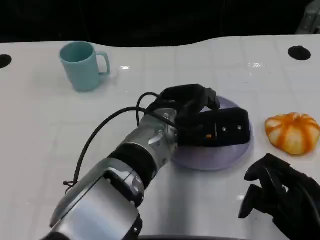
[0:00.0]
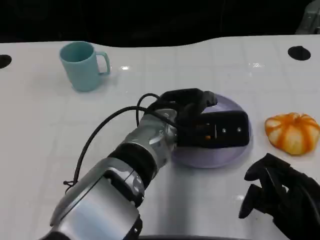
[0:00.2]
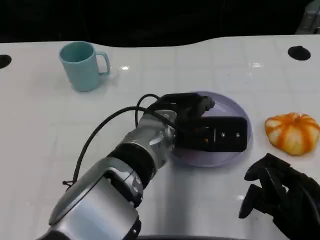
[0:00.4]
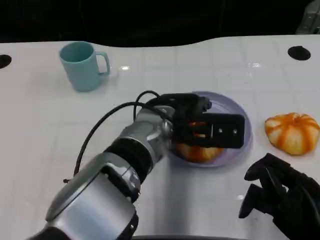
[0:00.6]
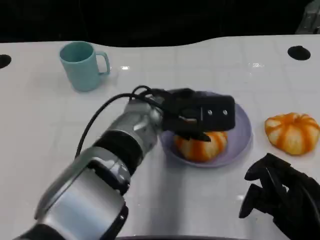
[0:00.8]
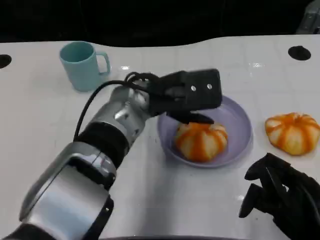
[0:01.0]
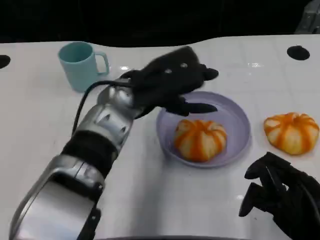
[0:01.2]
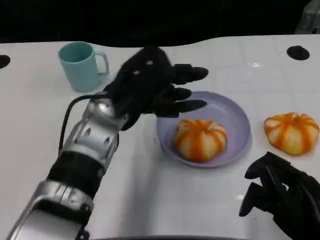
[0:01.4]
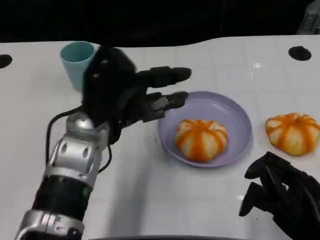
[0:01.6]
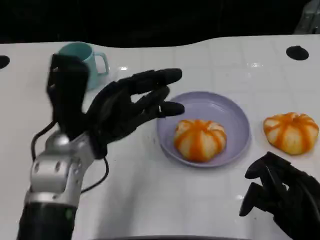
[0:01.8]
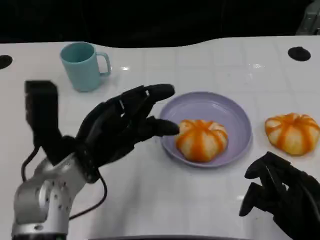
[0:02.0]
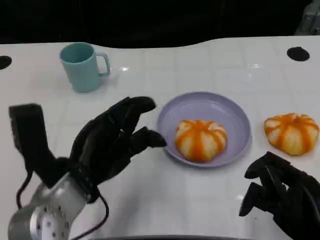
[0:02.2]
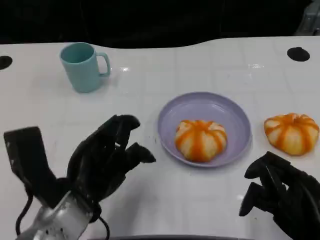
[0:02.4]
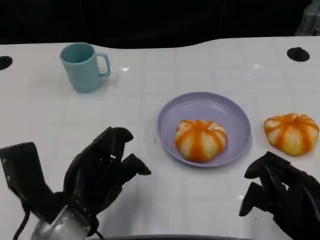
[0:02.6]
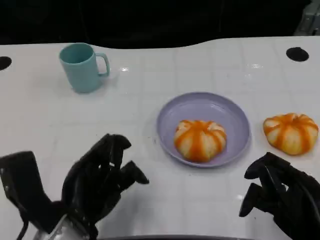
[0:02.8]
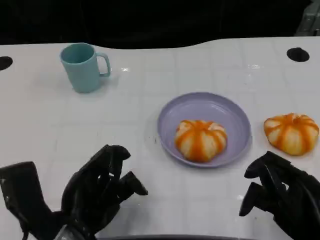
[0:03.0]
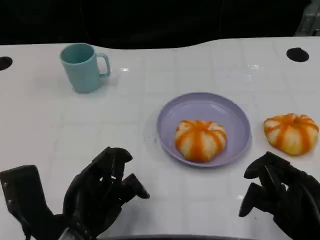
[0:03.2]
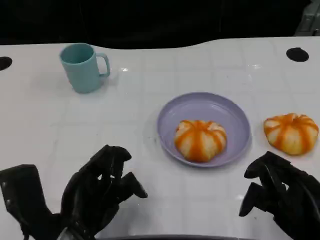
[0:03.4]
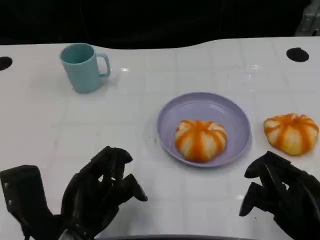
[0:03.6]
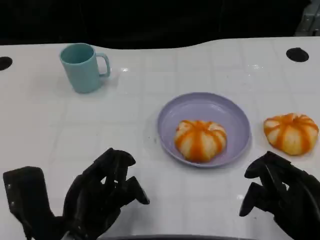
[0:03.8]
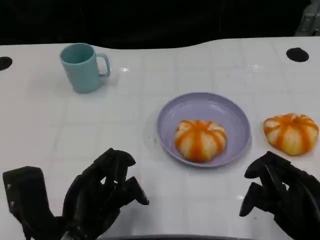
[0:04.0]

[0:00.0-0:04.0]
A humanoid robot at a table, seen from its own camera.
Task of the whole recording: Grasp the bread from the table and place it into the plate.
0:00.0 to 0:01.4: The left hand is displaced to the left by roughly 10 cm.
0:01.4 to 0:02.6: The left hand goes roughly 15 cm backward, downward and to the left.
0:02.6 to 0:04.0: The hands move only a little.

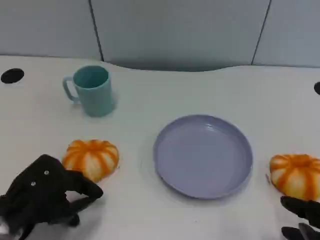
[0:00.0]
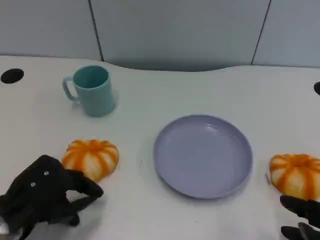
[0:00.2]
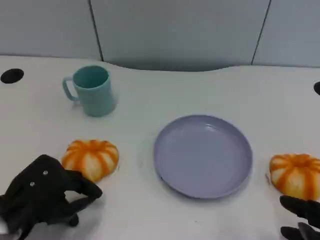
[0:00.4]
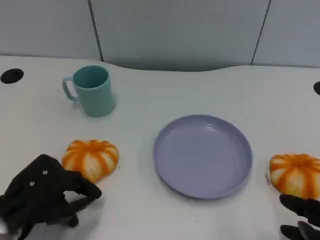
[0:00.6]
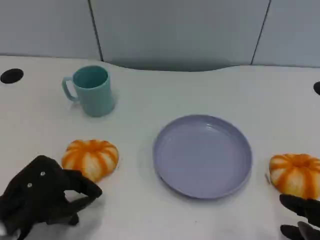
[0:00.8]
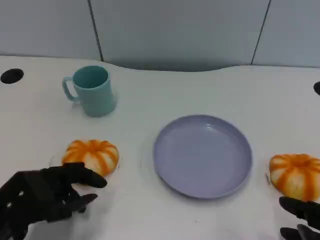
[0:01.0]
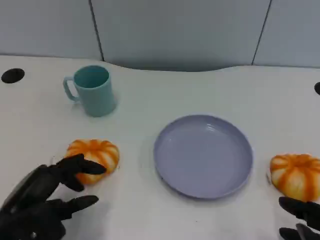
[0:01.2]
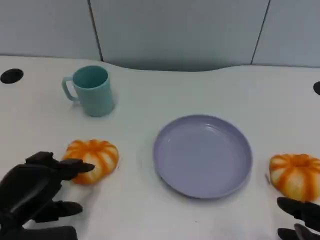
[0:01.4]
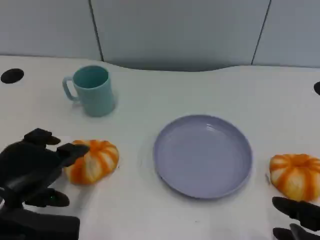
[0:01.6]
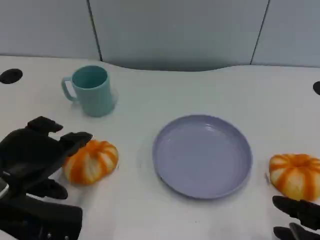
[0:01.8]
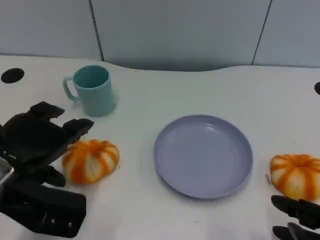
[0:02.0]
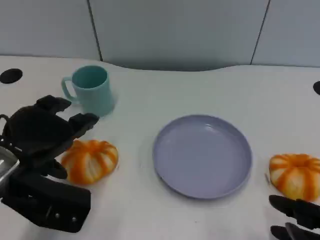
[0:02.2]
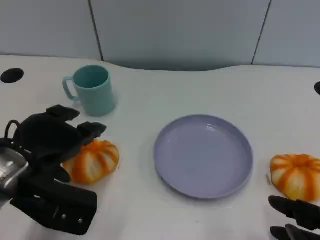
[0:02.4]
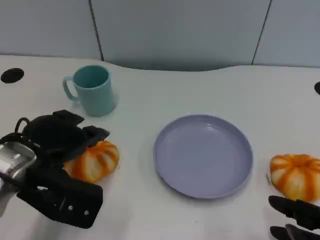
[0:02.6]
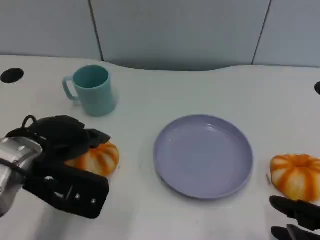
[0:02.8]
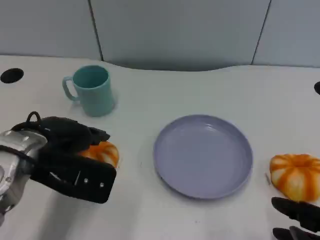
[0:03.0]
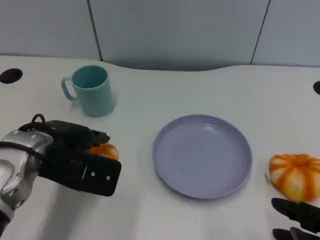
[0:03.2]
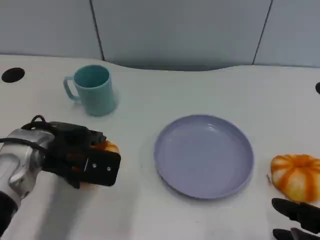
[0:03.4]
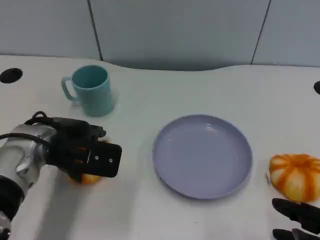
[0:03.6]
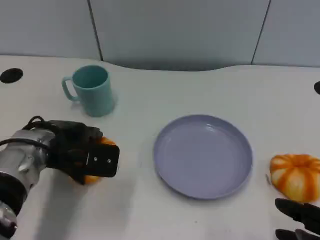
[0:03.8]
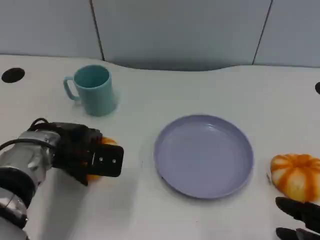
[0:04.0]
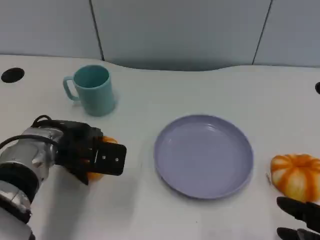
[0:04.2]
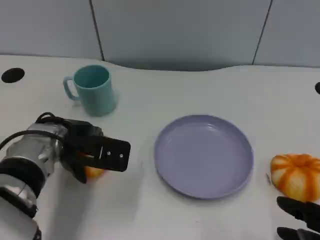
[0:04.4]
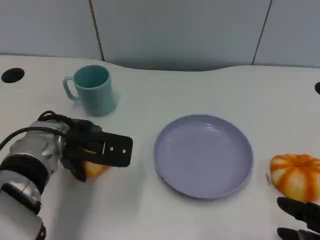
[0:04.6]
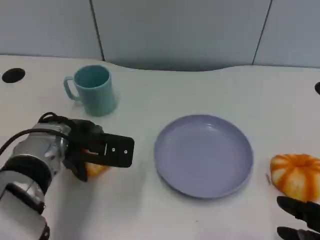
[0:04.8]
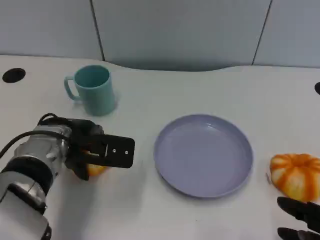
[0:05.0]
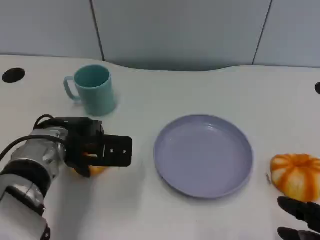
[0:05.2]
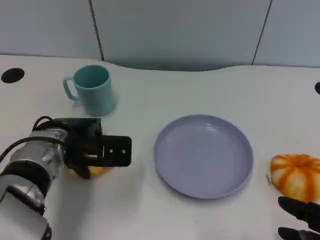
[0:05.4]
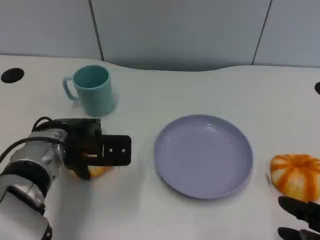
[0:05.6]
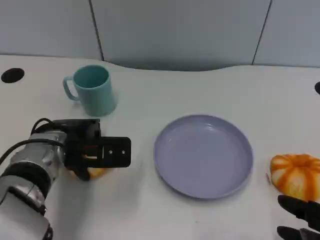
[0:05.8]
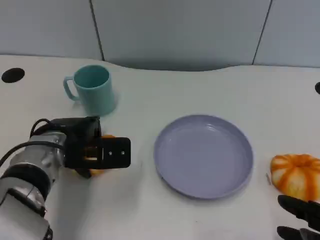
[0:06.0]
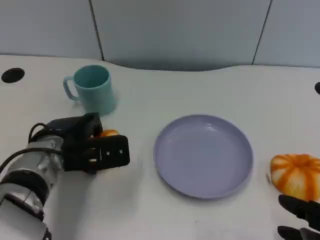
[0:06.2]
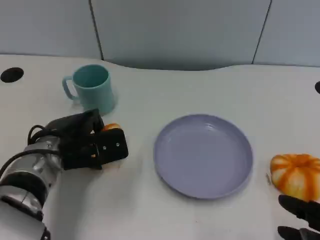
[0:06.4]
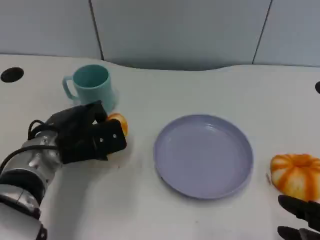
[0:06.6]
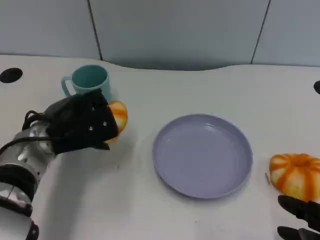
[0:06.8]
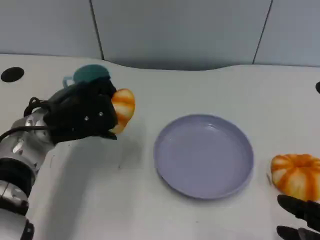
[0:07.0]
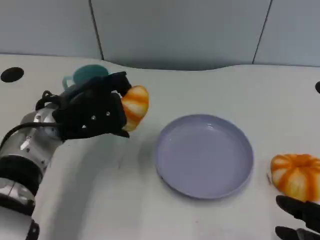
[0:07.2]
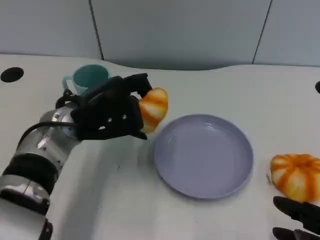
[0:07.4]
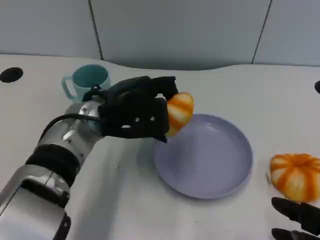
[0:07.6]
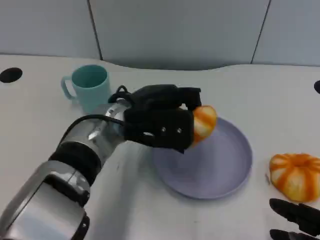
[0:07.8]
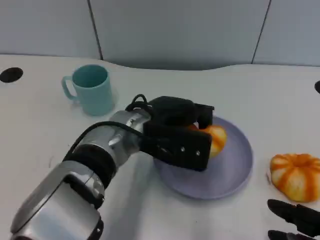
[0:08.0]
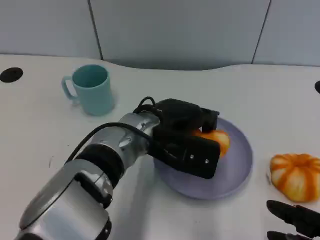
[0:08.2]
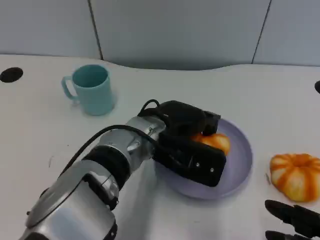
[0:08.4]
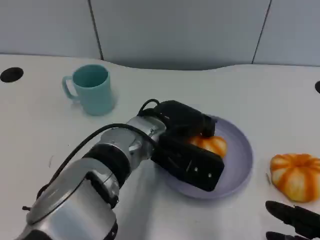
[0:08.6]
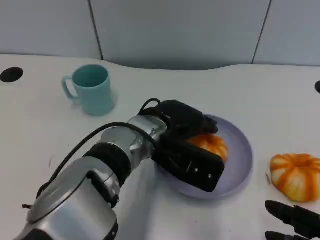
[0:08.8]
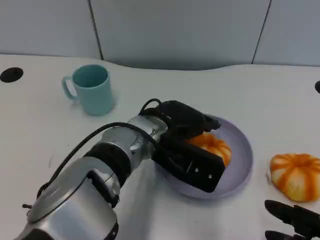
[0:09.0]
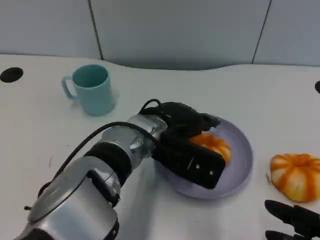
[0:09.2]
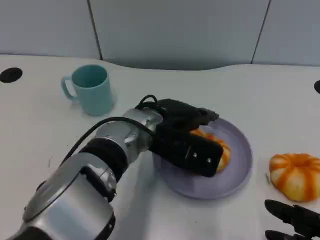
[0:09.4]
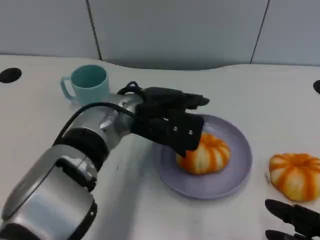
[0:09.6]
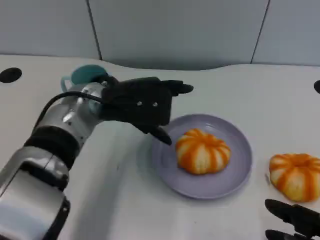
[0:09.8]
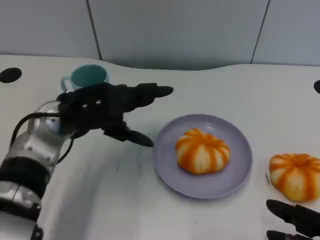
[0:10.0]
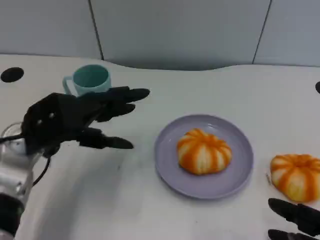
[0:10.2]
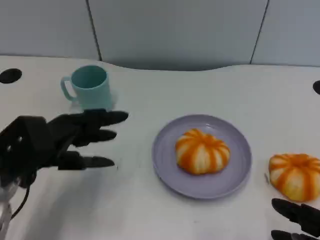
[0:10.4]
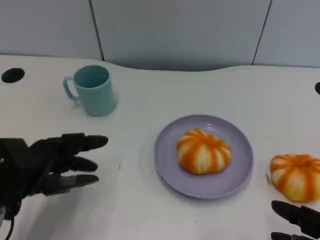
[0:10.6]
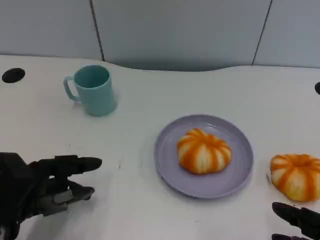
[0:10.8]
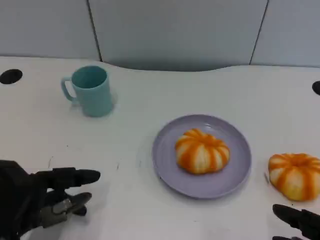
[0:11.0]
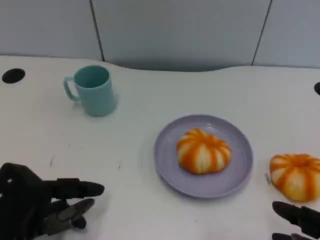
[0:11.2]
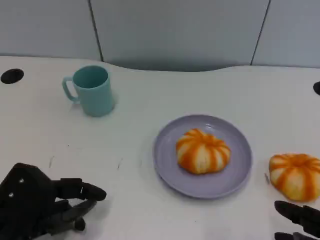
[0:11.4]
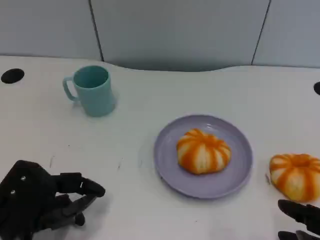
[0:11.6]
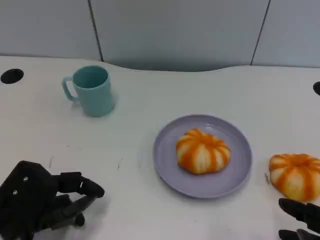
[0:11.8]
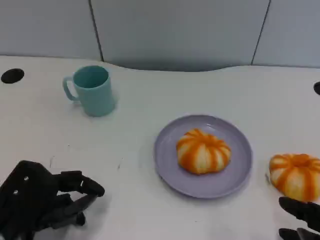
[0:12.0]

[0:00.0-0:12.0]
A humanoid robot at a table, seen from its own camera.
Task of the whole recording: Grasp the bread from the table and place it into the plate.
0:01.6 to 0:03.0: The left hand moves forward and to the right, about 10 cm.
0:03.0 to 0:04.4: The left hand is displaced forward by approximately 5 cm.
0:04.4 to 0:06.0: There are only small adjustments of the hands.
0:06.0 to 0:07.6: The left hand shifts roughly 10 cm to the right and upward.
0:07.6 to 0:09.0: The left hand moves to the right, approximately 5 cm.
0:09.0 to 0:10.4: The left hand travels to the left by roughly 20 cm.
0:10.4 to 0:12.0: The left hand is displaced backward by some 5 cm.

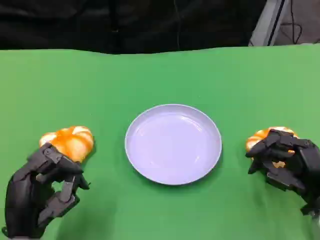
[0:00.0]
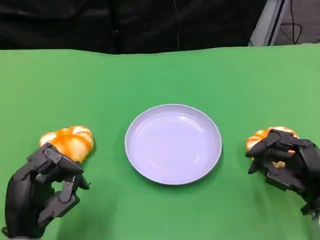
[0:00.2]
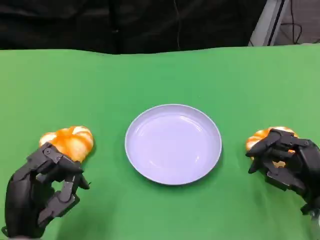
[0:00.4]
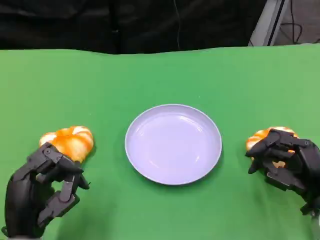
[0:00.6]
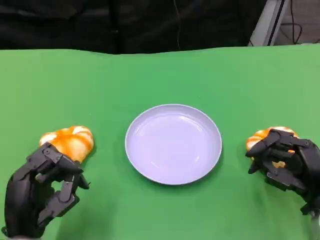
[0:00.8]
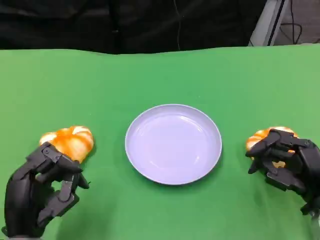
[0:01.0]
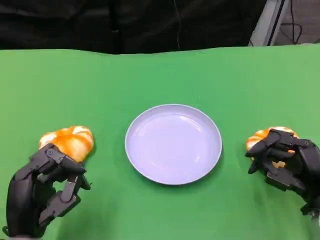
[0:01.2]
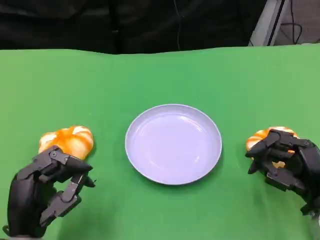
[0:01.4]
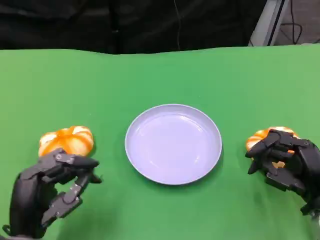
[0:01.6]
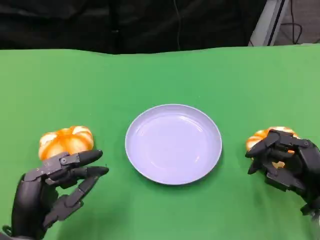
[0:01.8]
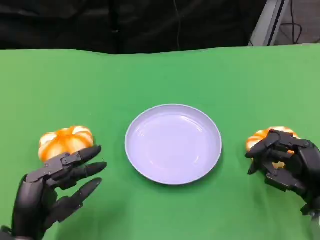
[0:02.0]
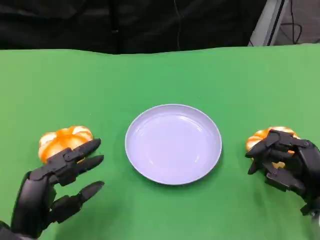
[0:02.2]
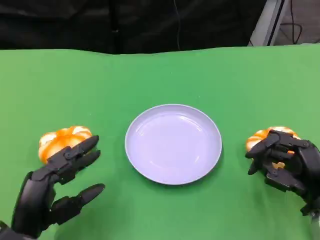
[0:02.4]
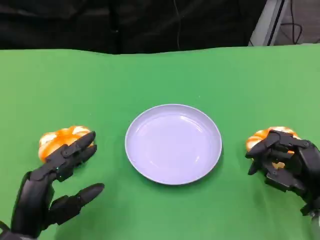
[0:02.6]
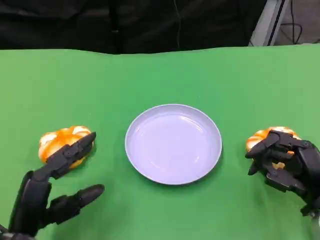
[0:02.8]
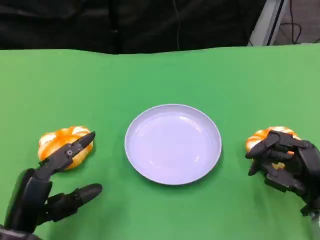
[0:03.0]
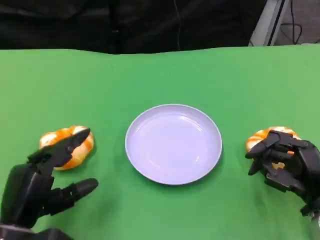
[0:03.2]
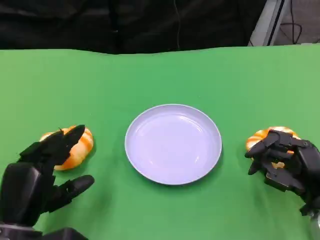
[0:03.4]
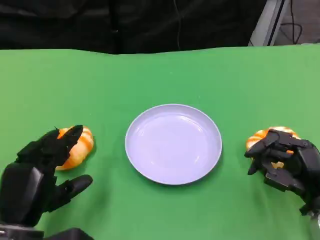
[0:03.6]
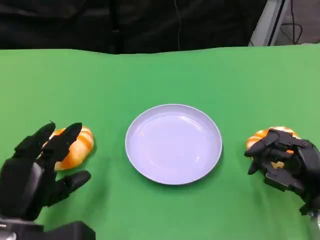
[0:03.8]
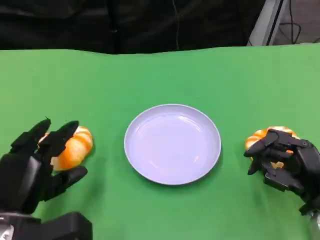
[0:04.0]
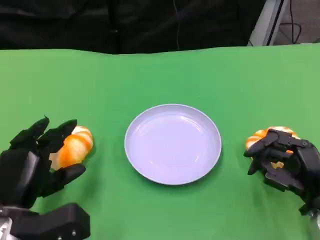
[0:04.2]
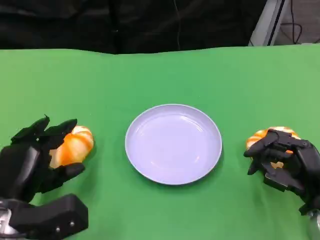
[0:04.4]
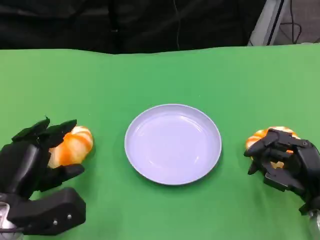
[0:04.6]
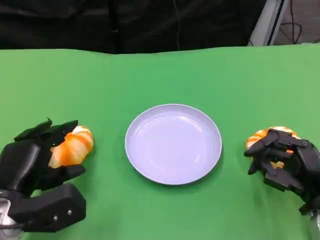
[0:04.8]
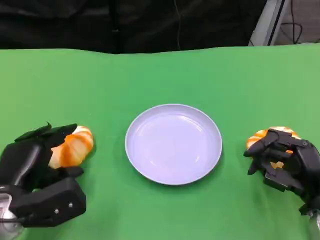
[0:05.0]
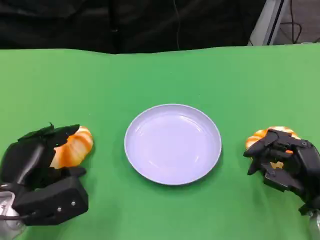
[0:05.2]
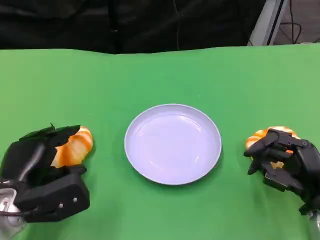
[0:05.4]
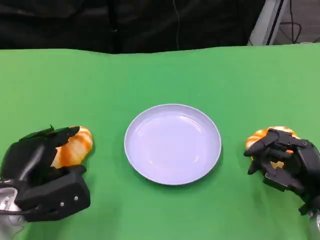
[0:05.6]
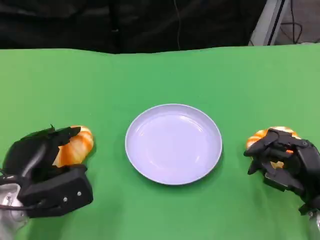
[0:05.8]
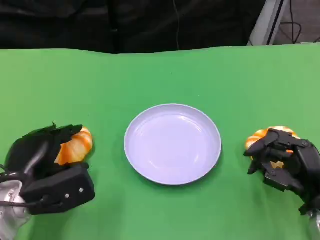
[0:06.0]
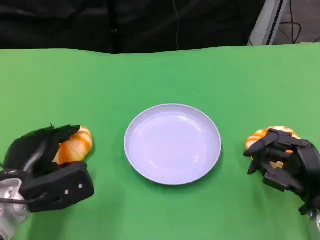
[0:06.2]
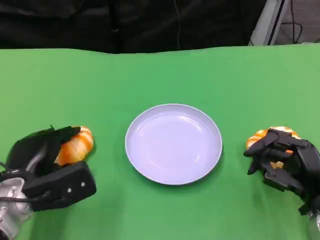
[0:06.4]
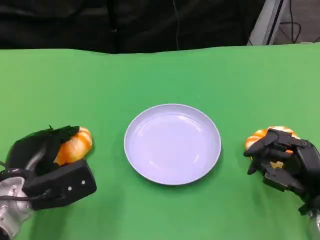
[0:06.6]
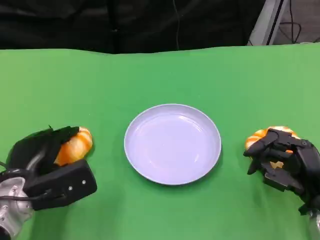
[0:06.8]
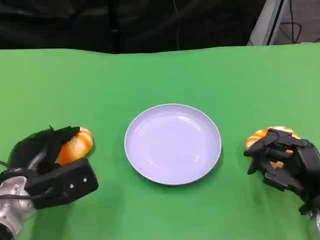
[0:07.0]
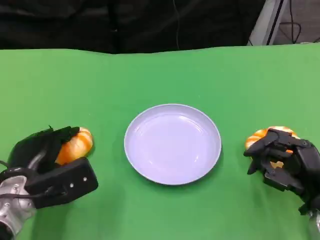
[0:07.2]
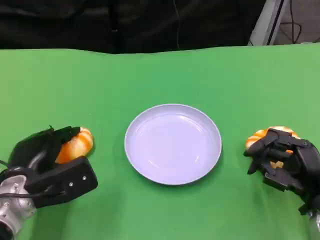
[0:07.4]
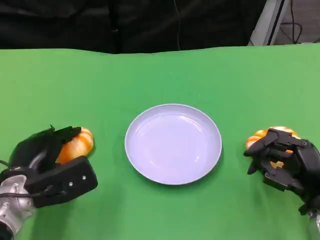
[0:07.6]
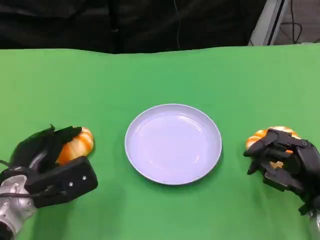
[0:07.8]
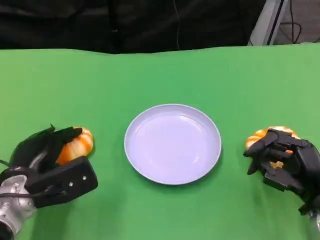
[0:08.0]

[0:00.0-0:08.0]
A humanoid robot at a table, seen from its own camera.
Task of the whole recording: Grasp the bread from the table and place it into the plate.
0:00.0 to 0:01.6: The hands stay close to where they were, moving slightly.
0:03.2 to 0:04.8: There are only small adjustments of the hands.
0:04.8 to 0:06.4: There are only small adjustments of the hands.
0:06.4 to 0:08.0: The two hands keep their place.
